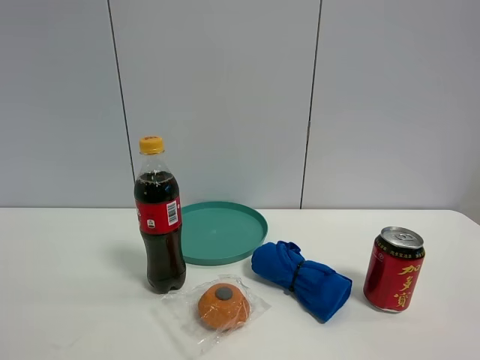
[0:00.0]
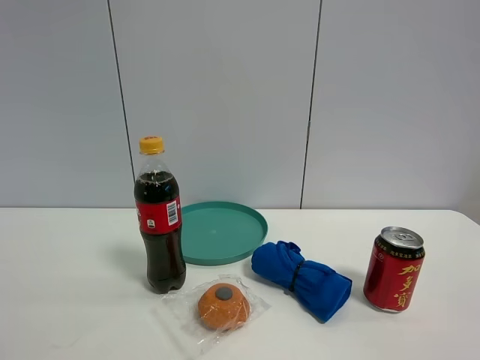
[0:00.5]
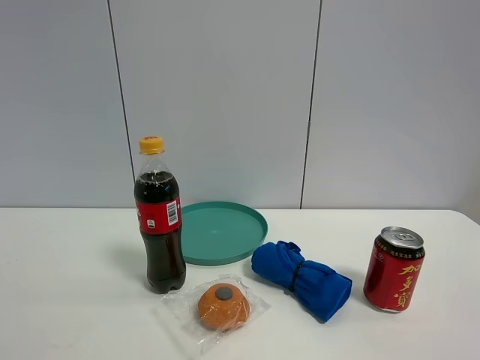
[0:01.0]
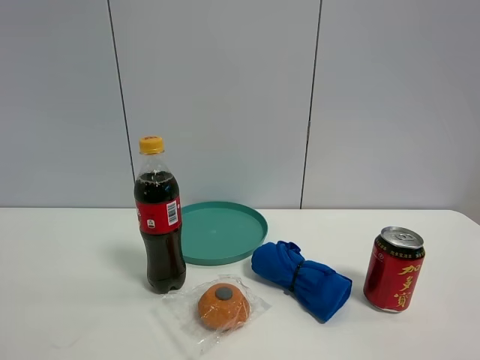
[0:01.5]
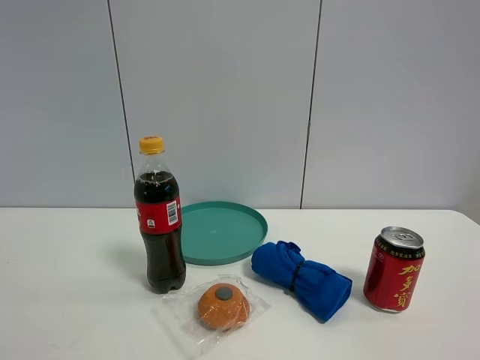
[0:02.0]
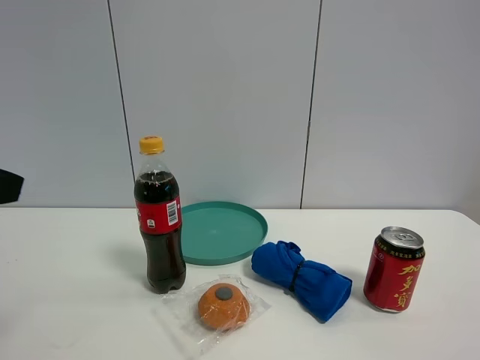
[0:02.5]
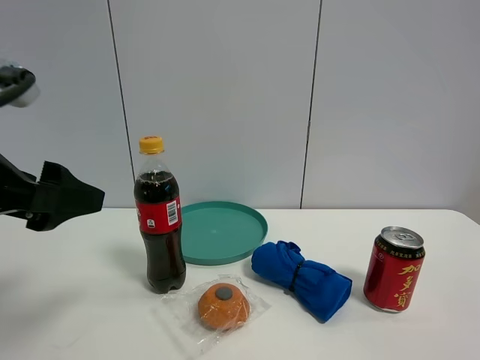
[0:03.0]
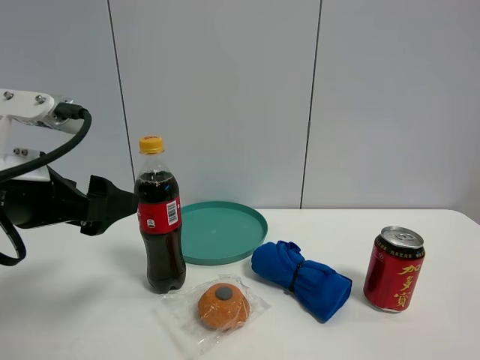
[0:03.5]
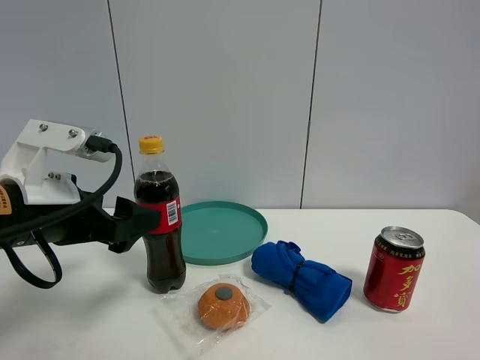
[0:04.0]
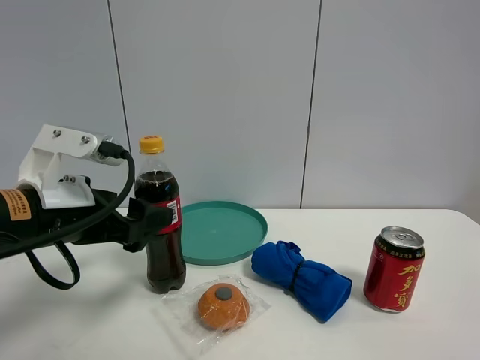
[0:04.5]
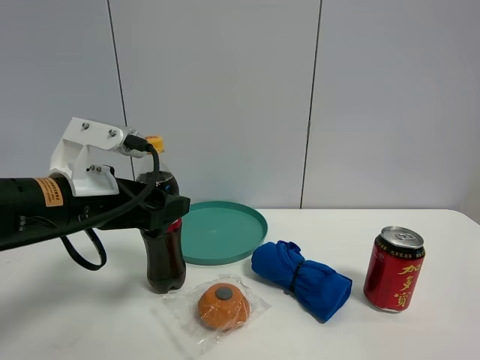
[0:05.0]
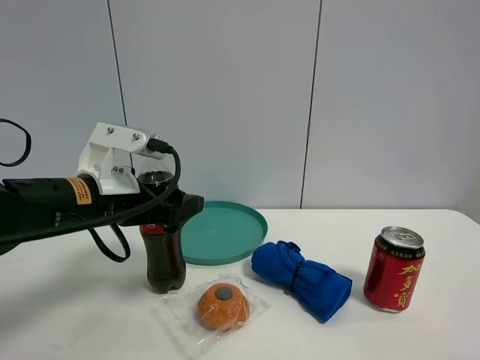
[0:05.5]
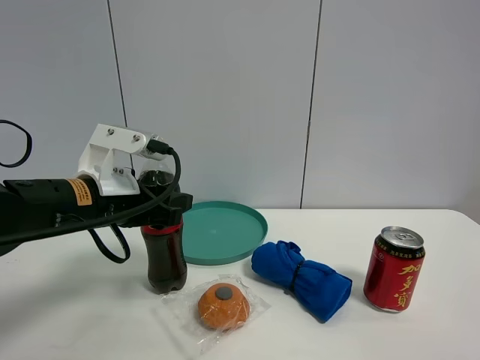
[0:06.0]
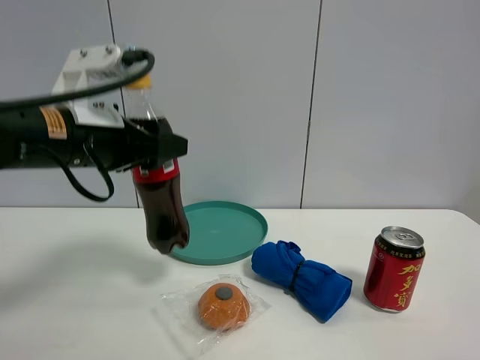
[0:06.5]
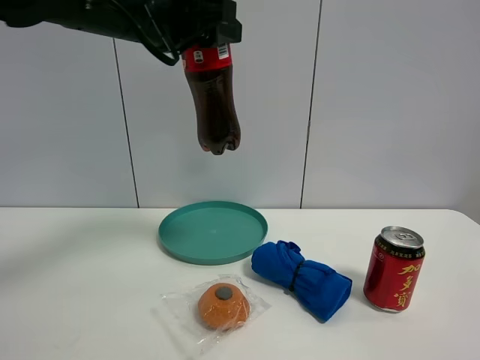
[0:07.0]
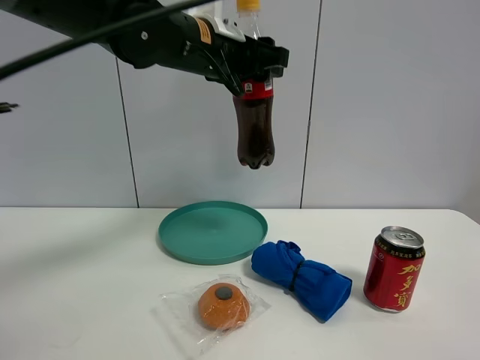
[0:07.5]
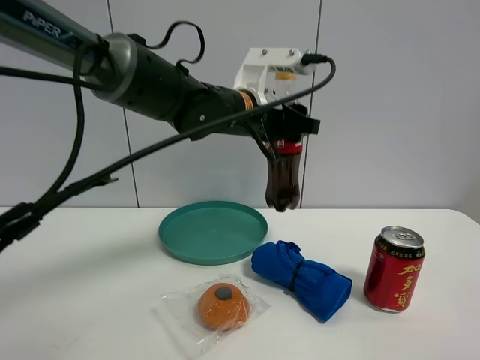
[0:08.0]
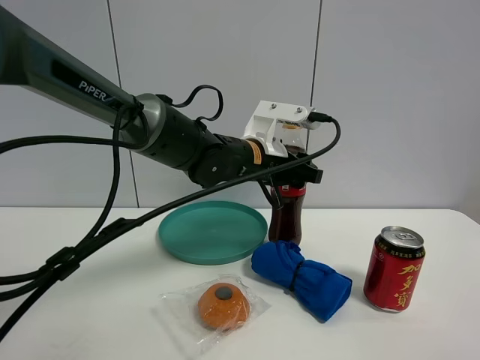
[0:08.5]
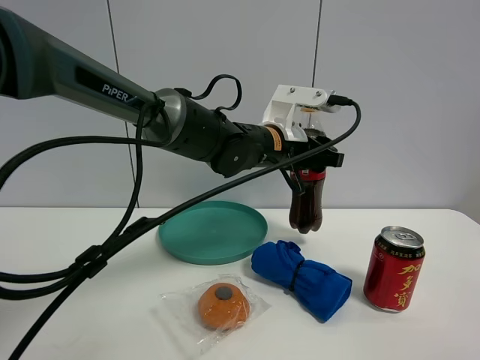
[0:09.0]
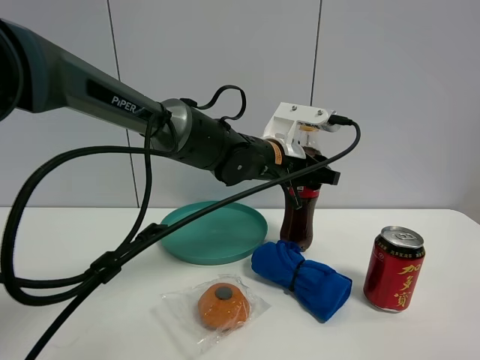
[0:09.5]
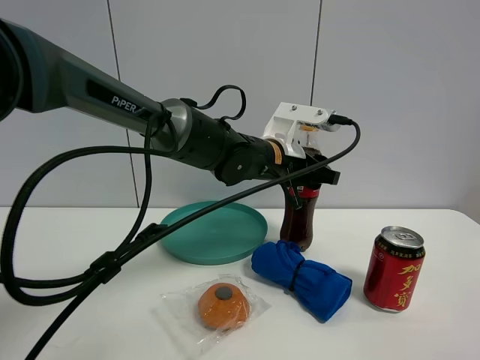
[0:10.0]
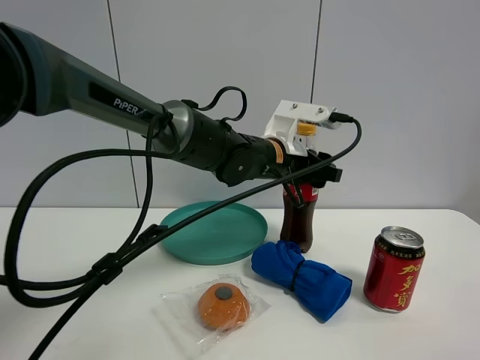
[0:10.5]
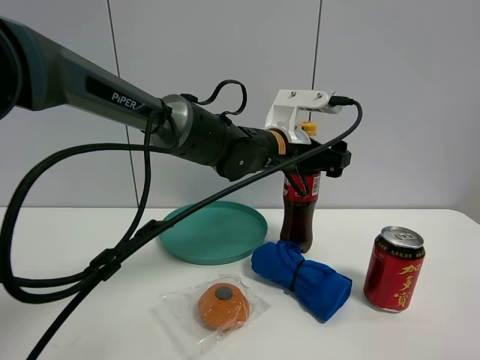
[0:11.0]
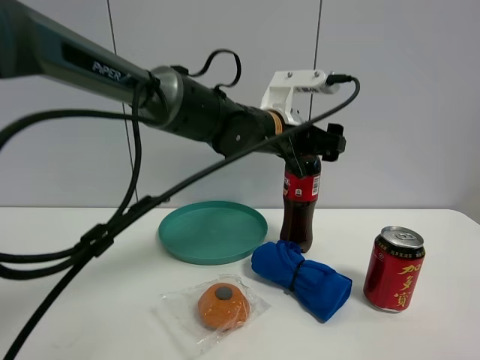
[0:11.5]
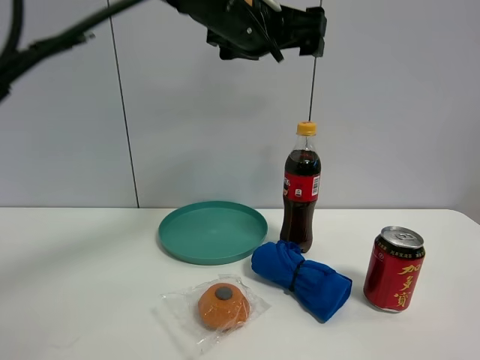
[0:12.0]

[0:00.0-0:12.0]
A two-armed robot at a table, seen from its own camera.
Task of the whole recording: the gripper move the object.
Step, 0:00.0 to 0:05.5: Grasp the coke with the left gripper.
0:02.0 to 0:04.0: The left gripper shifts about 25 cm downward, forward and to the right.
0:04.0 to 0:06.0: The left gripper goes some 5 cm forward, and closes.
0:06.0 to 0:08.0: The left gripper is displaced to the right, forward and upward by some 20 cm.
0:08.0 to 0:10.0: The left gripper shifts some 5 cm downward.
0:10.0 to 0:12.0: The left gripper goes approximately 20 cm upward, and opens its fingers.

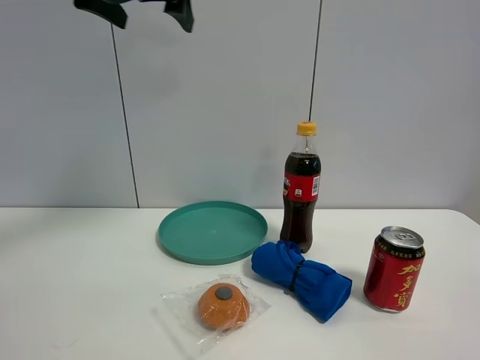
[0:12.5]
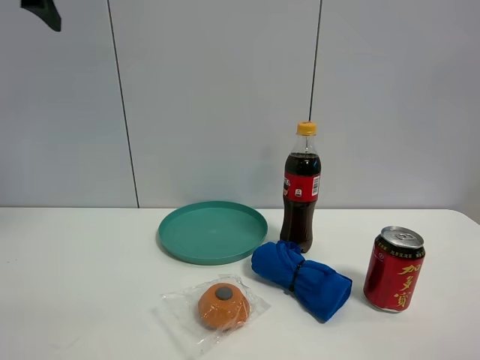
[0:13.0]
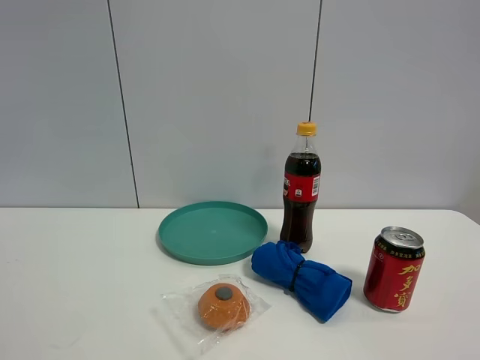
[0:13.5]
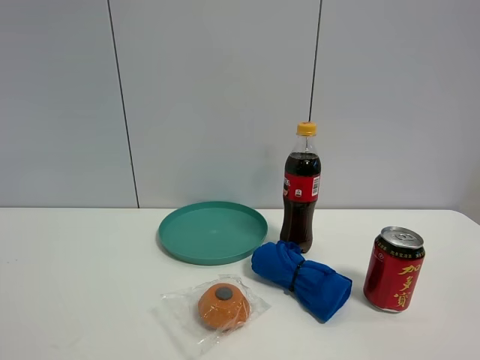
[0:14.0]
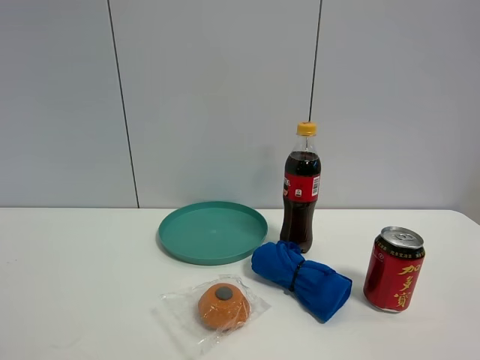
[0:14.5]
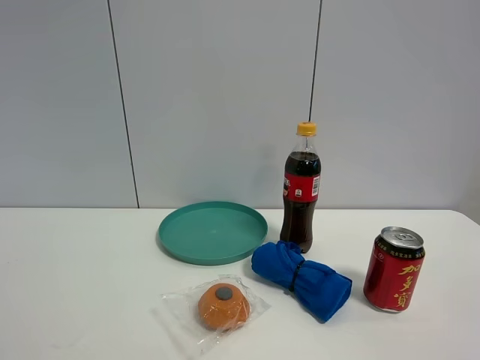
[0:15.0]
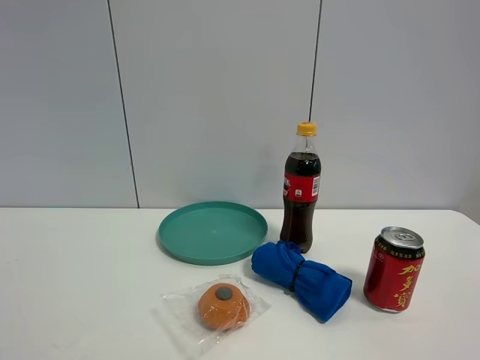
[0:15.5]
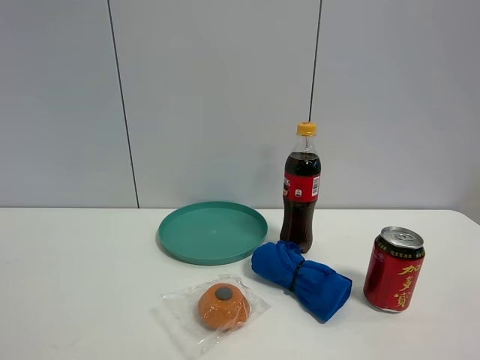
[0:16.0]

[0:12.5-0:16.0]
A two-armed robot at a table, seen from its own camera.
Task of the whole recording: the gripper move the object.
0:12.5 to 0:14.5: The left gripper moves backward and to the left, roughly 40 cm.

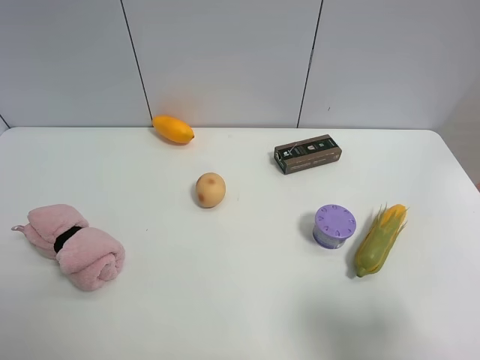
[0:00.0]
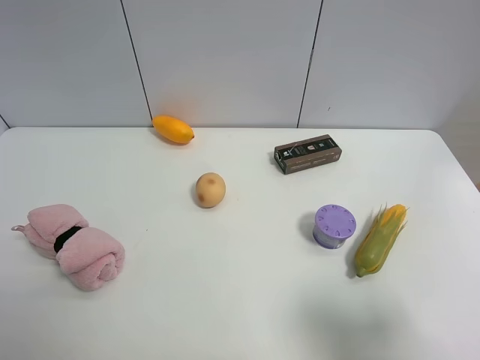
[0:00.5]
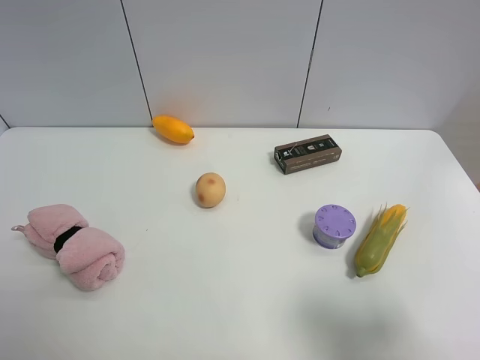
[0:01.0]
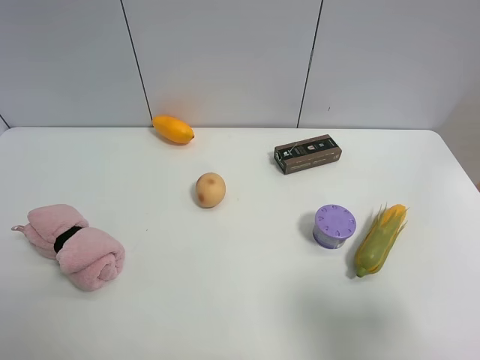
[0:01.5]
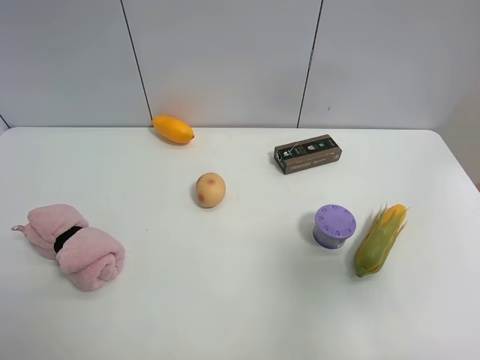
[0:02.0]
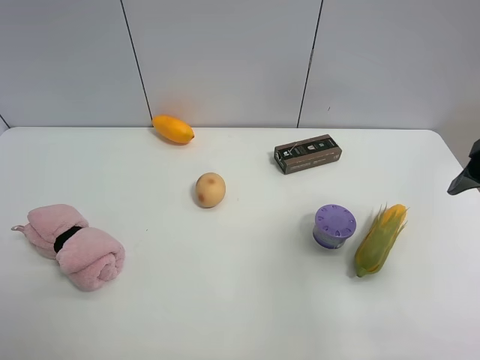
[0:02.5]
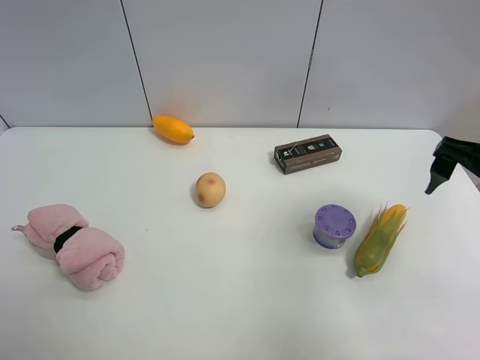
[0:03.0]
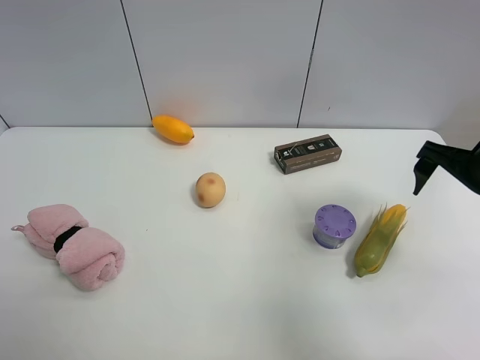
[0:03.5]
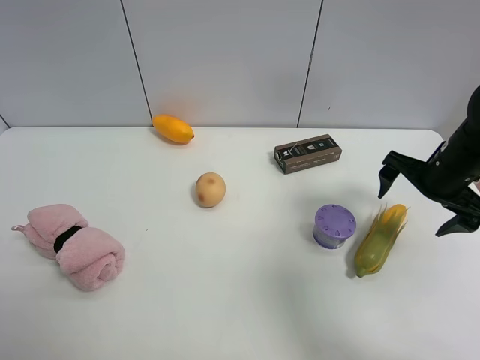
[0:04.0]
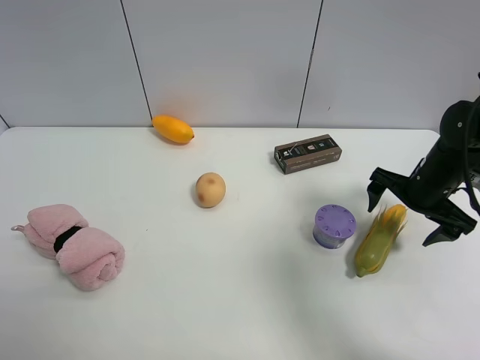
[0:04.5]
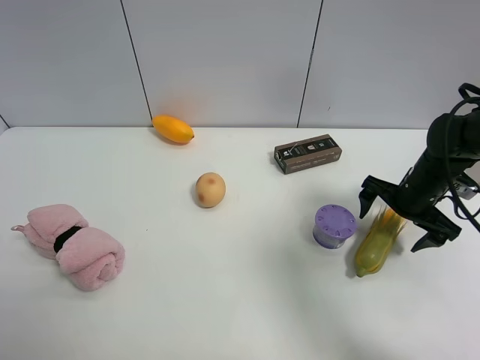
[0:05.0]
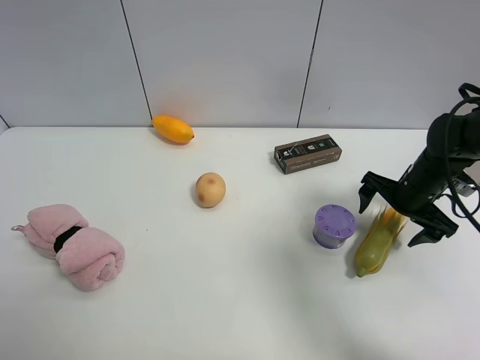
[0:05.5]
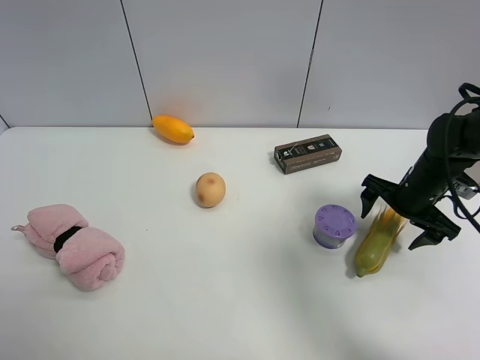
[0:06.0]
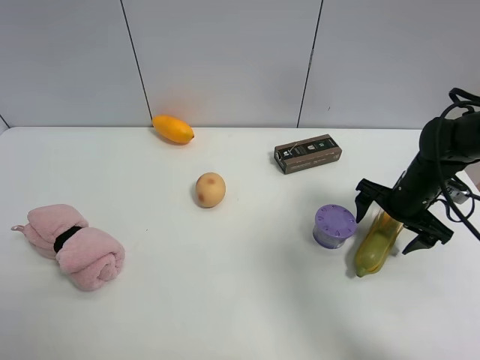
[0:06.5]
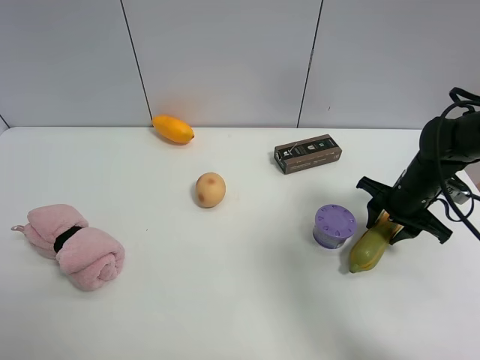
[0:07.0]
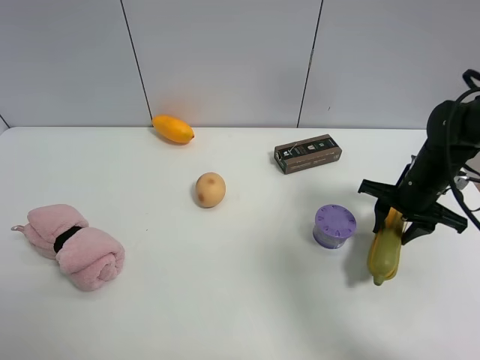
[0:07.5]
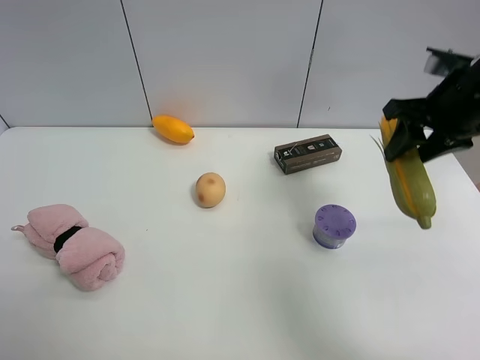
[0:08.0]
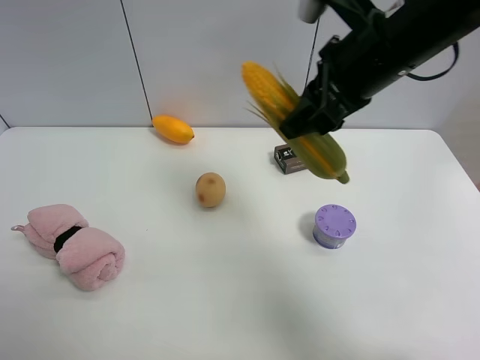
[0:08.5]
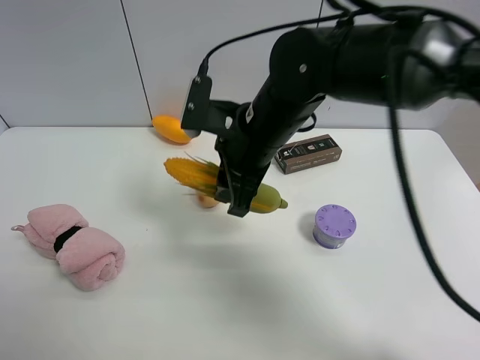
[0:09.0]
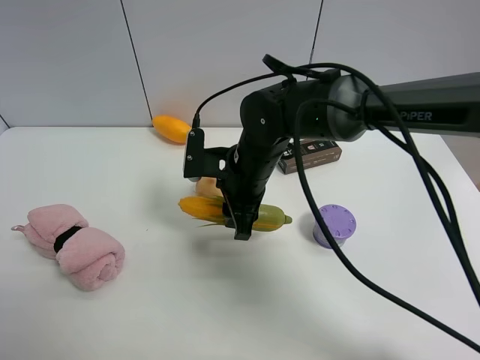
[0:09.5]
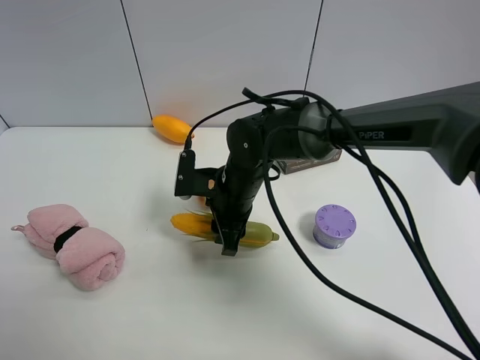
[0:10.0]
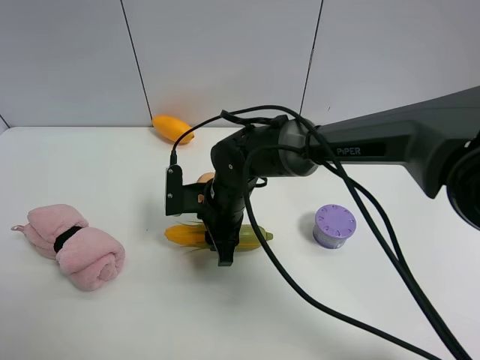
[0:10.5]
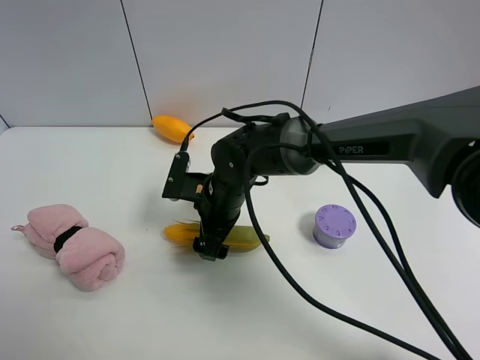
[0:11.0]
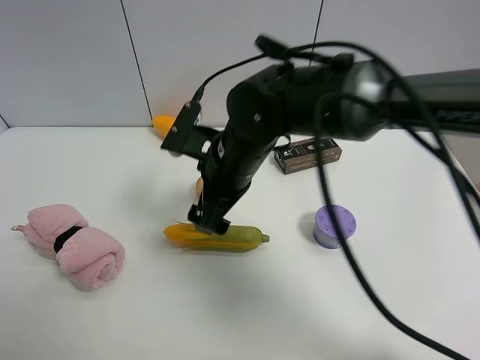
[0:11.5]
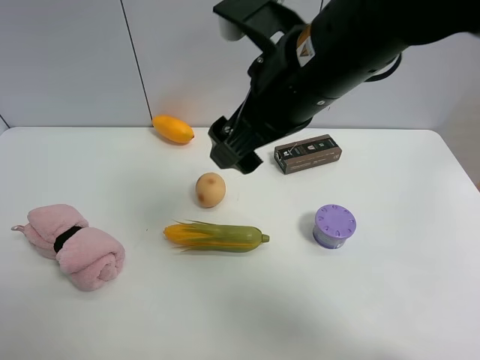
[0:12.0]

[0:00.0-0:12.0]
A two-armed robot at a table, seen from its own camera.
Task of the whole recording: the gripper move the object.
Step, 0:00.0 to 0:07.0: Grasp the corn with the right gripper.
Step, 0:07.5 to 0:11.0: Place the corn on the table with the right gripper.
0:00.0 to 0:02.0: The right gripper moves upward and forward, about 10 cm.
0:02.0 to 0:04.0: The right gripper is displaced forward and downward by some 25 cm.
0:04.0 to 0:06.0: The right gripper heads downward, covering approximately 5 cm.
0:06.0 to 0:08.0: The right gripper moves upward, some 20 cm, and closes its fingers.
0:08.0 to 0:10.0: The right gripper moves to the left and downward, about 30 cm.
0:10.0 to 0:12.0: The right gripper is displaced upward by about 20 cm, and opens.
